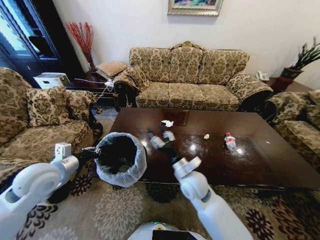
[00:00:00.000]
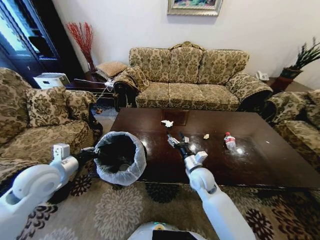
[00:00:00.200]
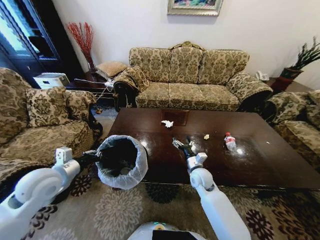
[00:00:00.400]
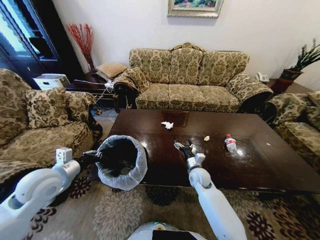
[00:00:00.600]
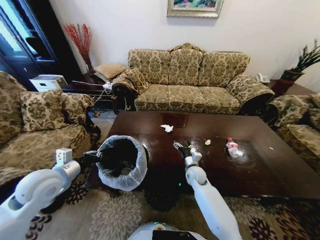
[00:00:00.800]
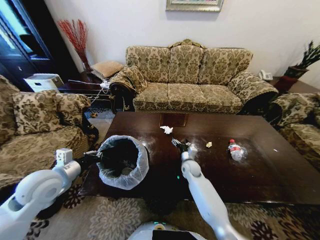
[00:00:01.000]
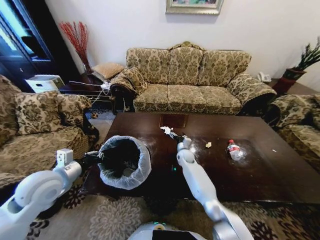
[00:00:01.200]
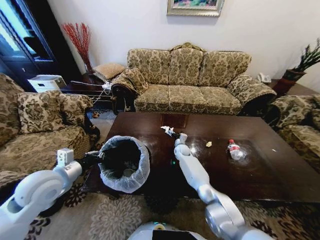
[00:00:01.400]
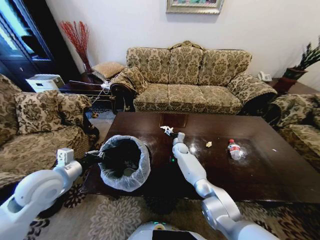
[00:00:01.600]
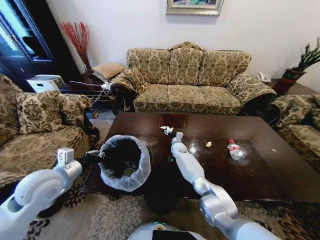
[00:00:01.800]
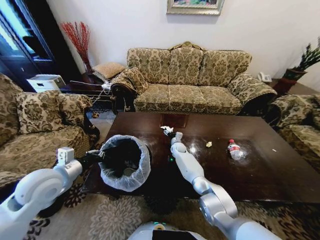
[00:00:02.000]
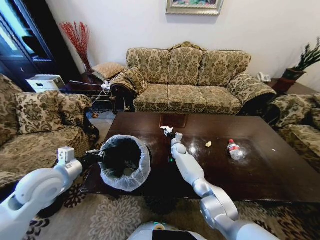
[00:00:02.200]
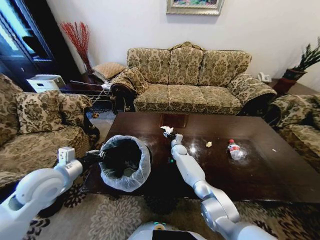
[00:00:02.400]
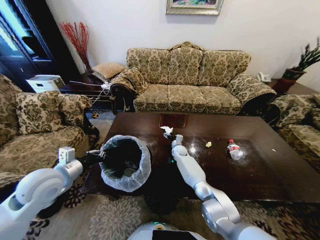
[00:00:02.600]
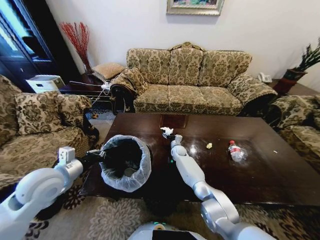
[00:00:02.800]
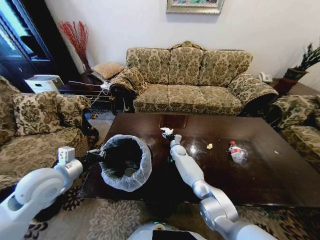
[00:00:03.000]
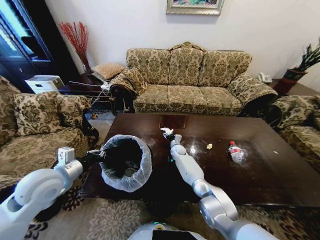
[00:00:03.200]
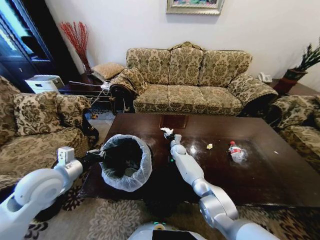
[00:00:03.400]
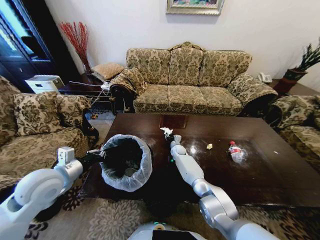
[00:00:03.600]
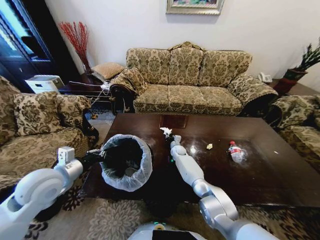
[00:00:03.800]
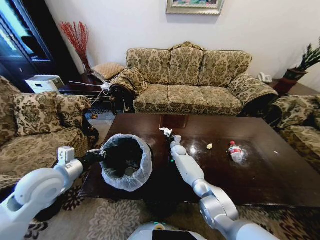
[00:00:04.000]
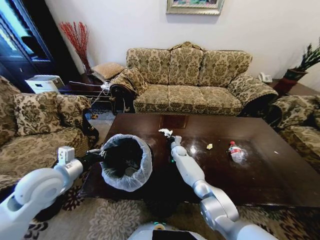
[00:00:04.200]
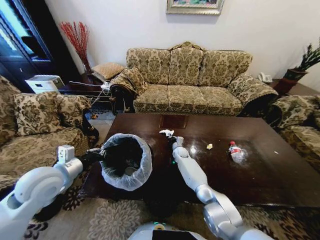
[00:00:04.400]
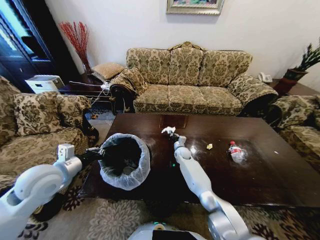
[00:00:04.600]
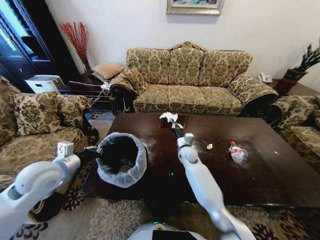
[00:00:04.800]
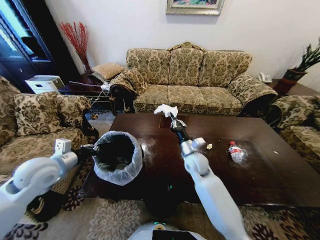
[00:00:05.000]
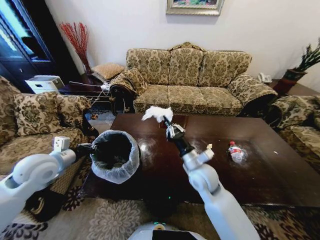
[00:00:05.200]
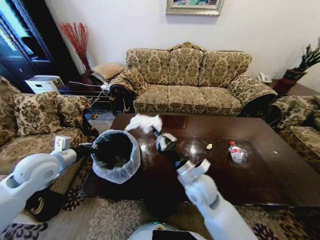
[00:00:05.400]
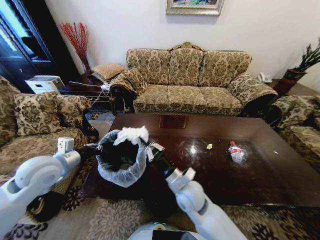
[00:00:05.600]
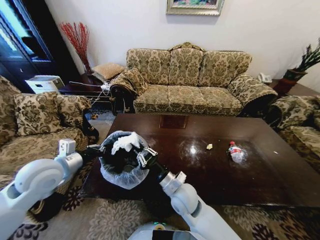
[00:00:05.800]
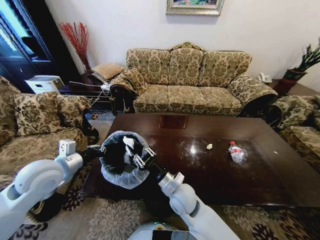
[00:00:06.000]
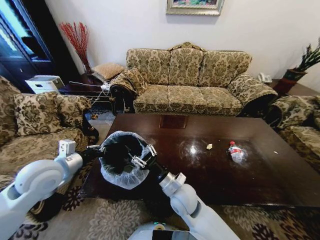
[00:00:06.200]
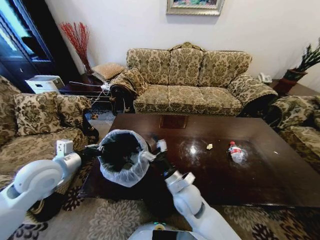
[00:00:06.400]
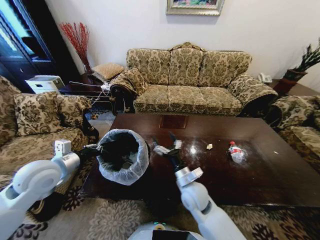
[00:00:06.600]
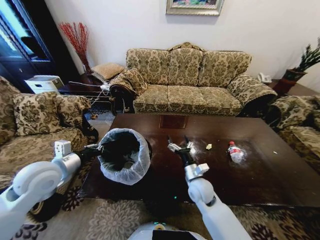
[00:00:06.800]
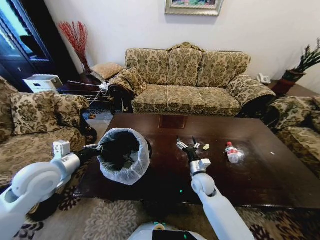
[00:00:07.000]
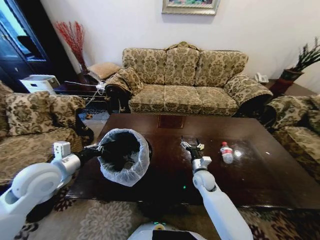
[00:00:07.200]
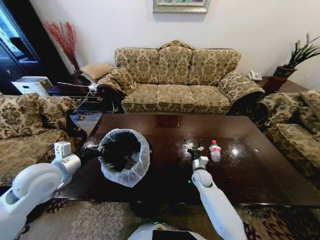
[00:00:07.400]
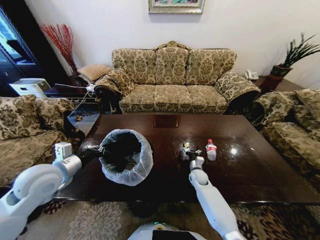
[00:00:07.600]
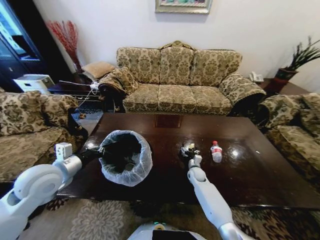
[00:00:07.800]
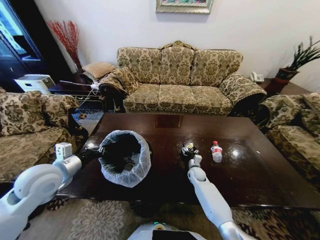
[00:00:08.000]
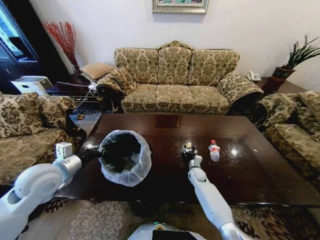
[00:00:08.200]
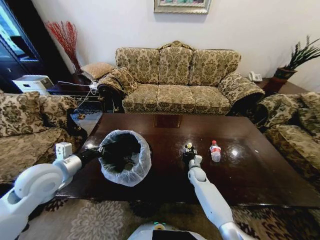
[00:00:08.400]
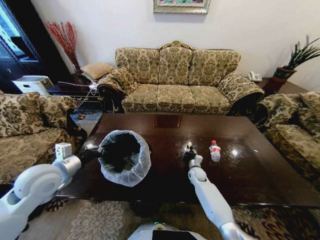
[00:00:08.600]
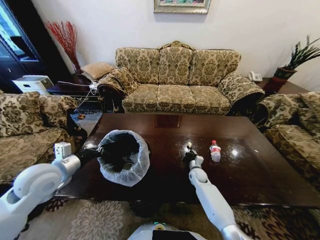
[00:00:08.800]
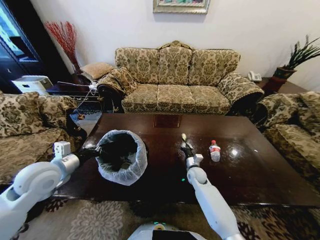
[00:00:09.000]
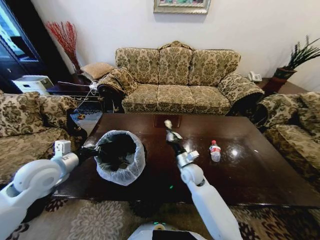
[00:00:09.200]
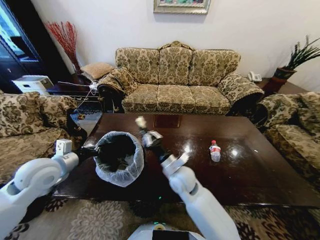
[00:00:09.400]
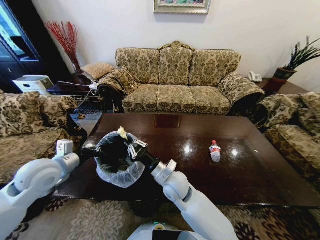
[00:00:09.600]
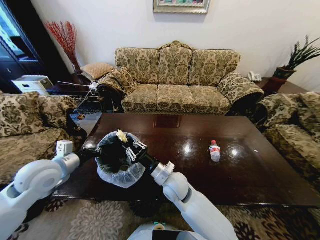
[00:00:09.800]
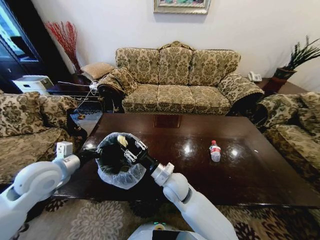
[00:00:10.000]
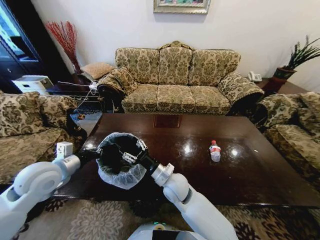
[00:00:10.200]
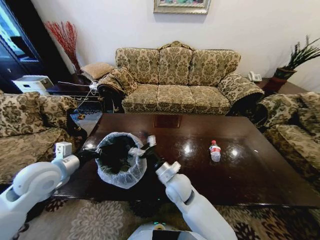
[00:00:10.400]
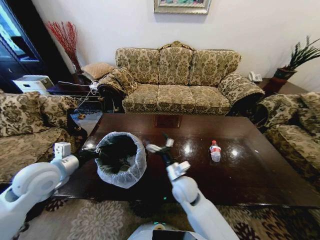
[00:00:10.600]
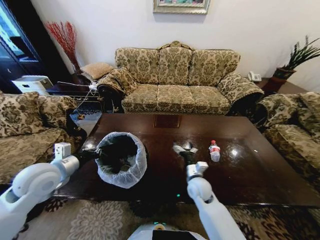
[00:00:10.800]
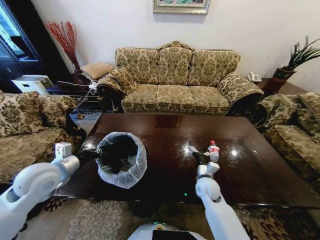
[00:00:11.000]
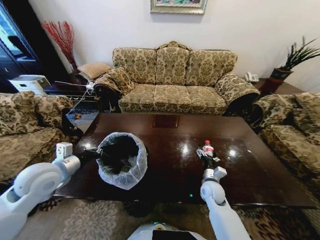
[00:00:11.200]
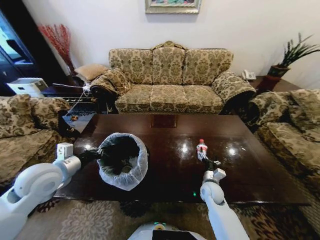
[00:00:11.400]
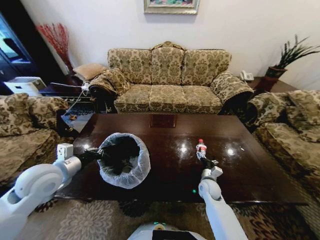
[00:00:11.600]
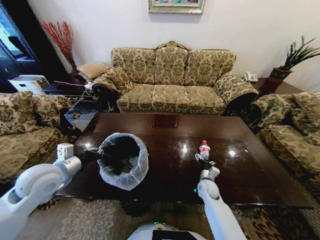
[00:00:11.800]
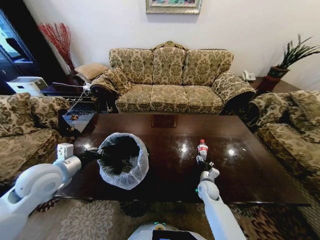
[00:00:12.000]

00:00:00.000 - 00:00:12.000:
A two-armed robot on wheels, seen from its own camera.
Task of the whole recording: Move to the front of the table and place the trash on the table into the trash bin.
00:00:00.000 - 00:00:01.600: The right gripper travels forward and downward by about 30 cm, and opens its fingers.
00:00:01.600 - 00:00:03.000: The grippers move only a little.
00:00:03.000 - 00:00:04.400: The right gripper closes its fingers.
00:00:04.400 - 00:00:06.000: The right gripper is displaced backward and upward by about 35 cm.
00:00:06.000 - 00:00:07.600: The right gripper moves downward, forward and to the right, approximately 25 cm, and opens.
00:00:07.600 - 00:00:09.000: The right gripper closes up.
00:00:09.000 - 00:00:10.400: The right gripper goes about 25 cm upward, to the left and backward, and opens.
00:00:10.400 - 00:00:12.000: The right gripper shifts roughly 25 cm to the right and downward.

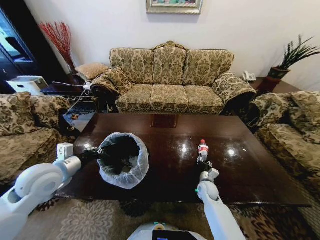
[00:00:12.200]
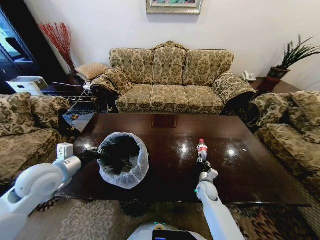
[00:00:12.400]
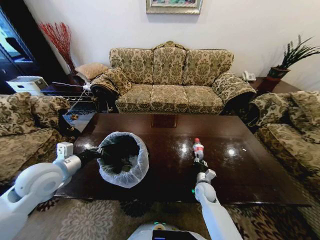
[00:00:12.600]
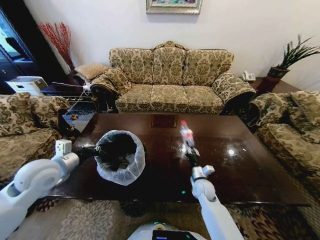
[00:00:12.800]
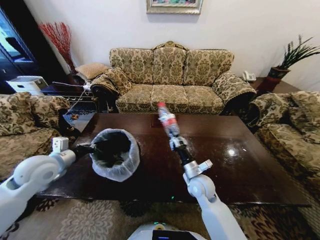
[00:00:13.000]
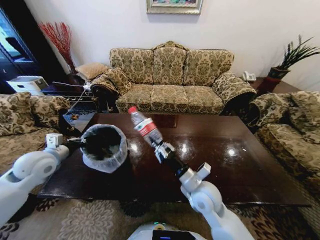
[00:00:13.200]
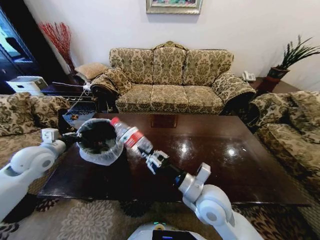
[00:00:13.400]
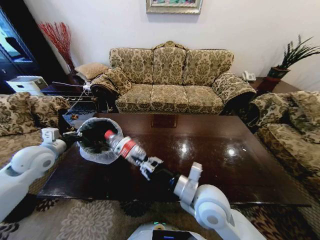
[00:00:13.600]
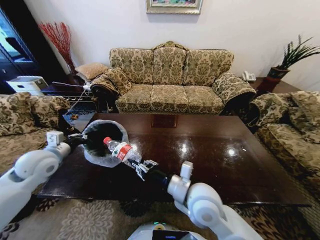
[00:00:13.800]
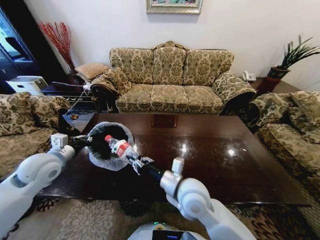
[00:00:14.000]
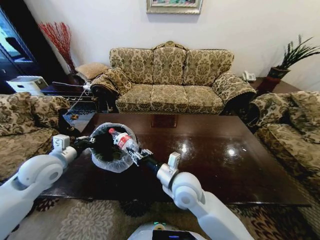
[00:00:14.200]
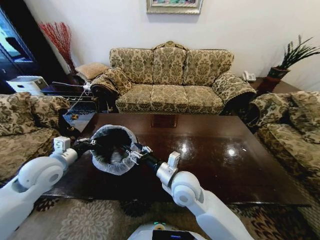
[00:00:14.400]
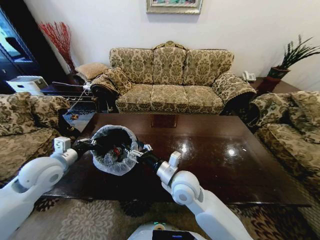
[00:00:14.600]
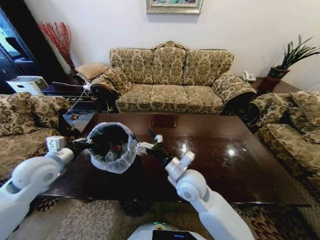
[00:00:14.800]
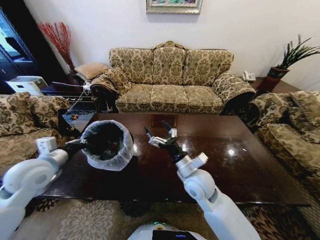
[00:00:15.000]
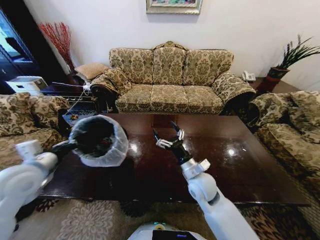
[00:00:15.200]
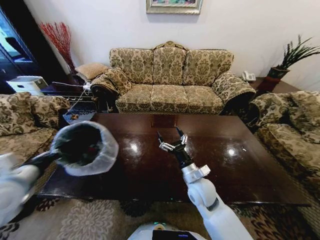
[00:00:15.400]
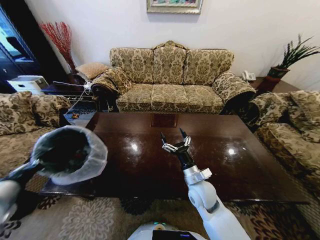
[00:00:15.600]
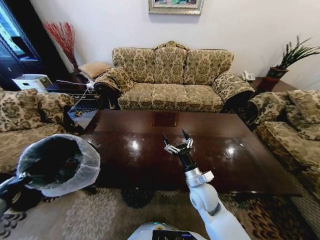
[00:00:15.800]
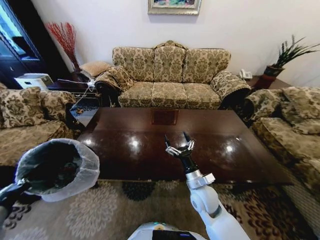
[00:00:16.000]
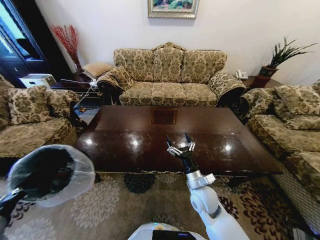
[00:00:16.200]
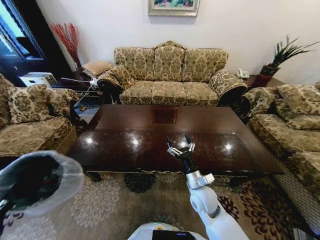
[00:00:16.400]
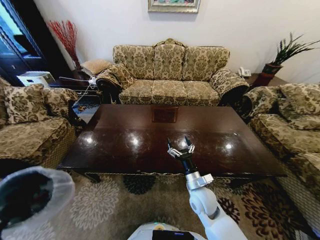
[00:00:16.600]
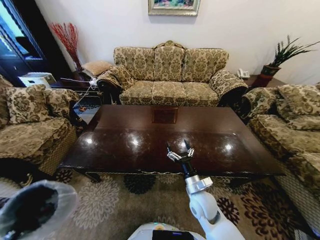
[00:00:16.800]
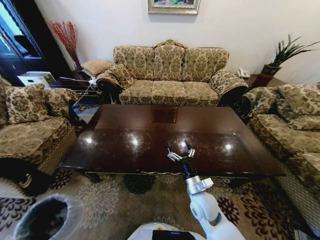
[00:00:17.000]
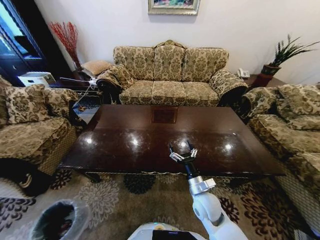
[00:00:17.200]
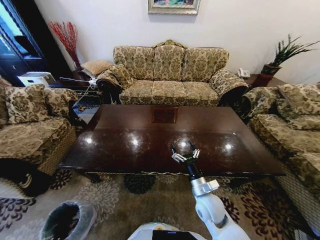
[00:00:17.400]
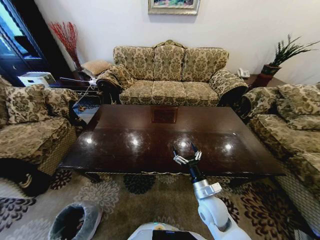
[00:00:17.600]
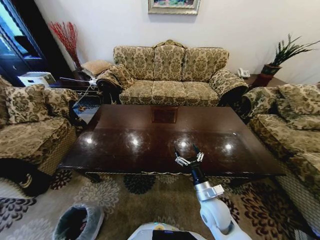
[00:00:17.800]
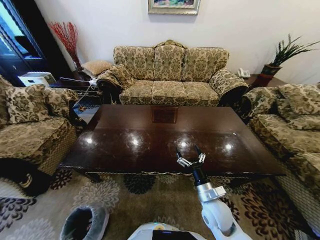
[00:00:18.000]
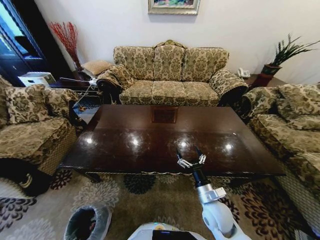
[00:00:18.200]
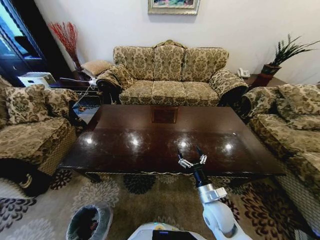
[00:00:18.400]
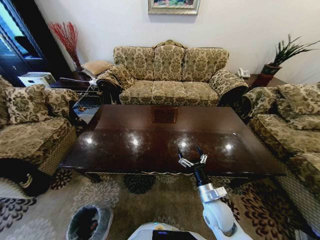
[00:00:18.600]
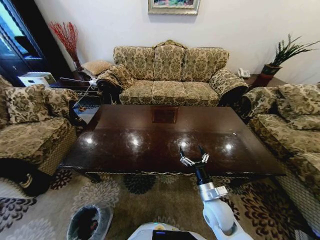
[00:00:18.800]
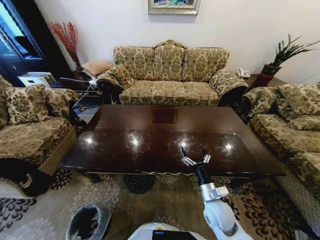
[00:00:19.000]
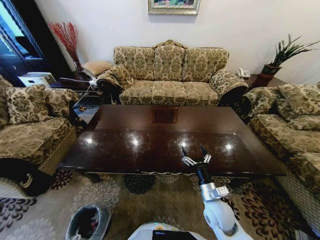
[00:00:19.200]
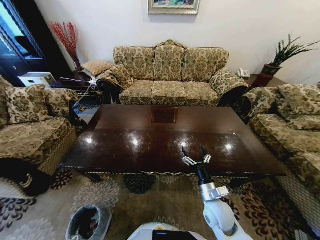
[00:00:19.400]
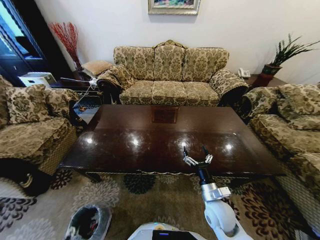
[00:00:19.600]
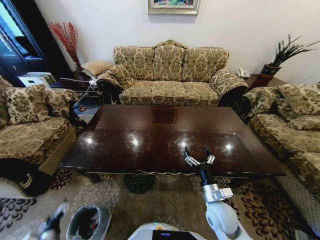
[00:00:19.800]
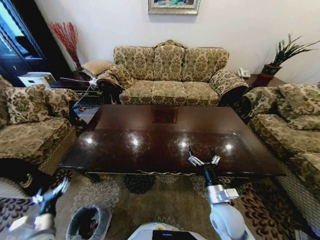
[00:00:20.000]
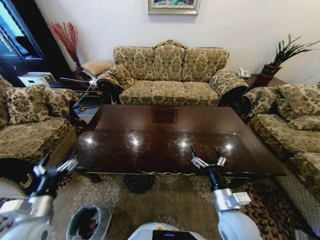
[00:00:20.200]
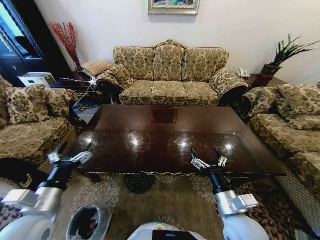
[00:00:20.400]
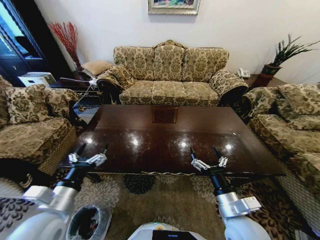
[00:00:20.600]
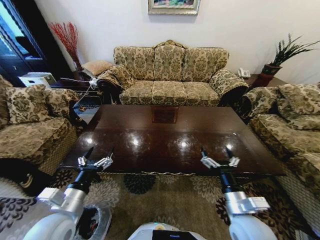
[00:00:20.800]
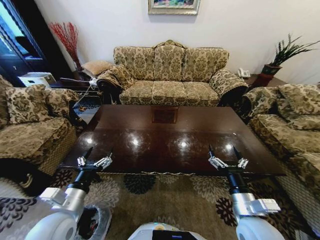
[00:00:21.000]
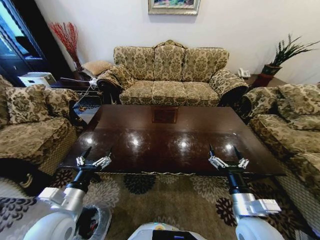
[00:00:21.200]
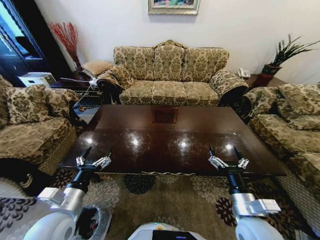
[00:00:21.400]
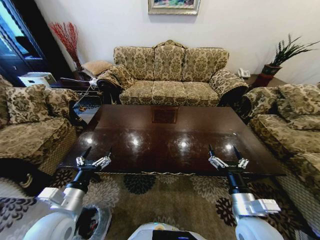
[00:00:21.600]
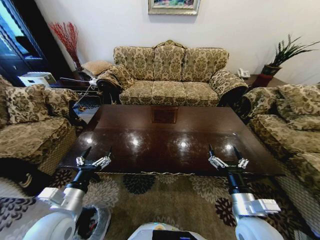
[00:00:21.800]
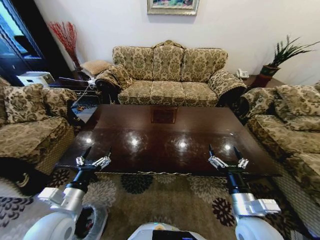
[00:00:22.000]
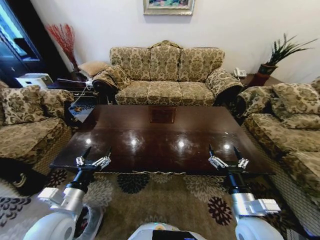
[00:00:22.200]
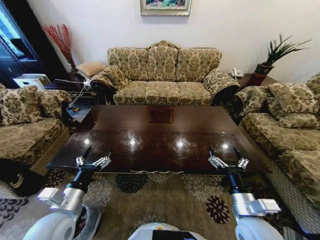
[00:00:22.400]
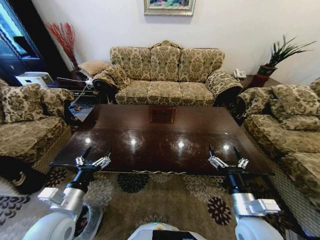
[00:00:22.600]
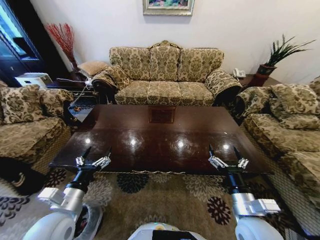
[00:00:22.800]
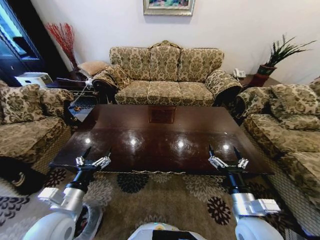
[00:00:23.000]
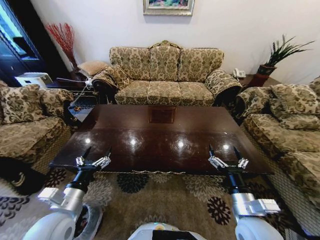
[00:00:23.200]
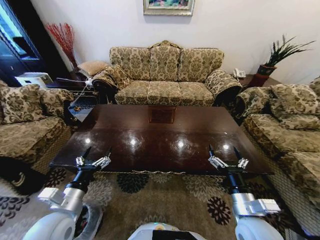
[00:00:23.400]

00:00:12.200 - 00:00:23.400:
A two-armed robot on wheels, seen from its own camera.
Task of the whole recording: Move to the front of the table and place the trash on the table into the trash bin.
00:00:12.200 - 00:00:13.800: The left gripper goes approximately 5 cm to the left; the right gripper heads upward, to the left and backward, covering about 35 cm.
00:00:13.800 - 00:00:15.400: The right gripper heads downward and forward, covering some 10 cm, and opens up. Meanwhile the left gripper shifts roughly 10 cm backward.
00:00:15.400 - 00:00:17.000: The right gripper moves approximately 5 cm. The left gripper moves downward and backward, roughly 35 cm.
00:00:17.000 - 00:00:18.600: The right gripper ends up roughly 5 cm from where it was; the left gripper shifts approximately 20 cm downward.
00:00:18.600 - 00:00:20.200: The left gripper moves upward, some 40 cm, and opens its fingers, while the right gripper heads upward, covering about 5 cm.
00:00:20.200 - 00:00:21.800: The left gripper shifts approximately 10 cm to the right. Meanwhile the right gripper ends up about 5 cm from where it was.
